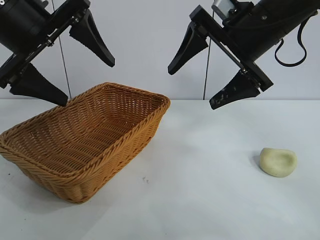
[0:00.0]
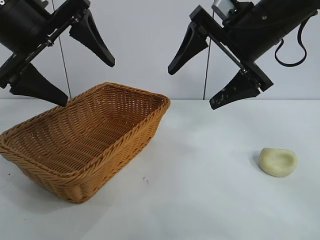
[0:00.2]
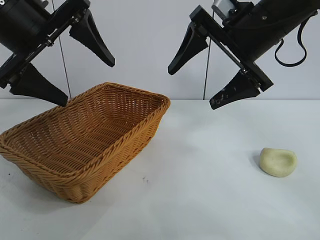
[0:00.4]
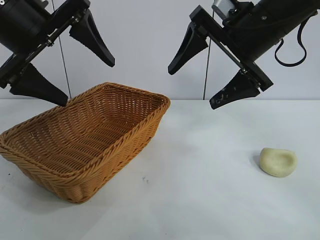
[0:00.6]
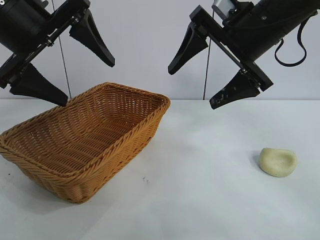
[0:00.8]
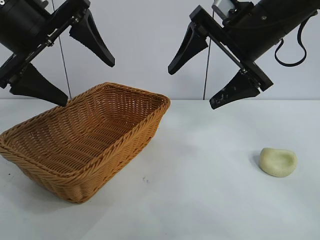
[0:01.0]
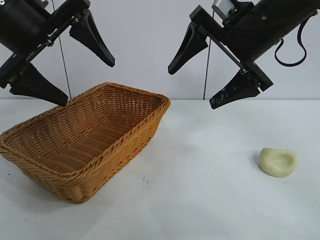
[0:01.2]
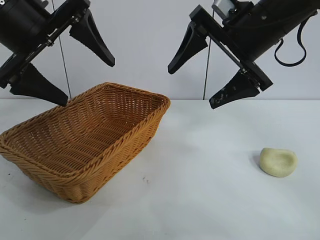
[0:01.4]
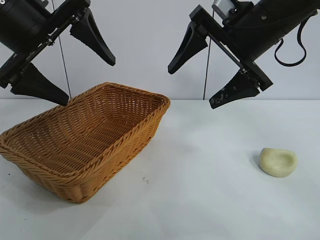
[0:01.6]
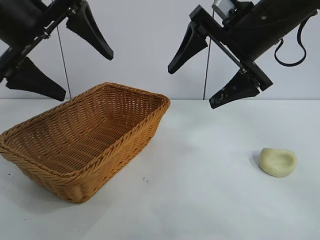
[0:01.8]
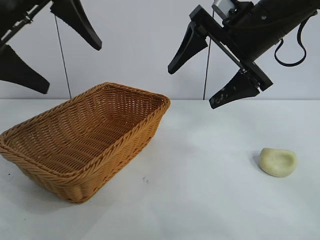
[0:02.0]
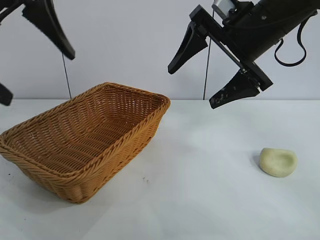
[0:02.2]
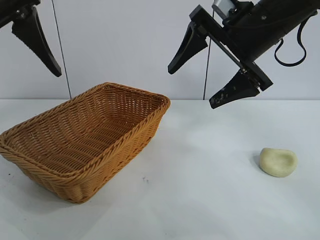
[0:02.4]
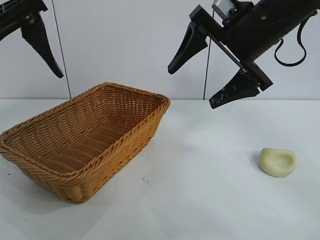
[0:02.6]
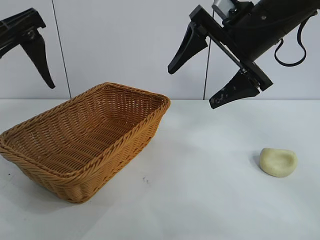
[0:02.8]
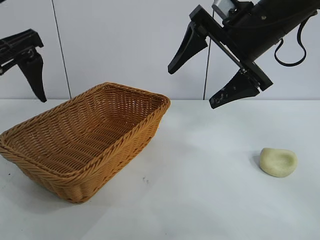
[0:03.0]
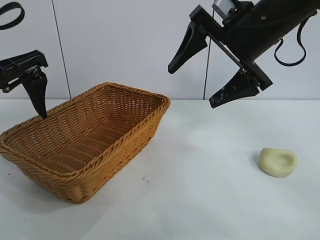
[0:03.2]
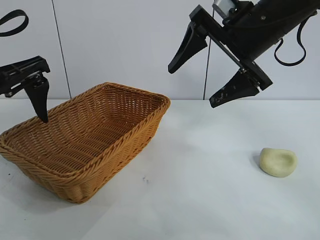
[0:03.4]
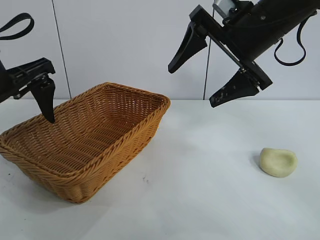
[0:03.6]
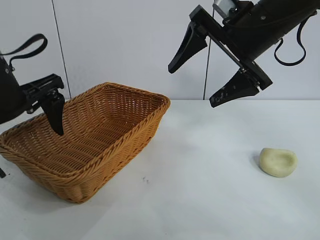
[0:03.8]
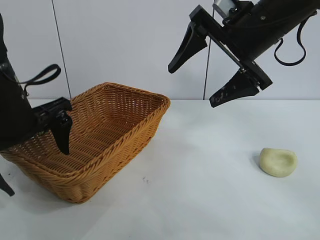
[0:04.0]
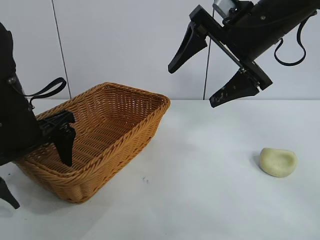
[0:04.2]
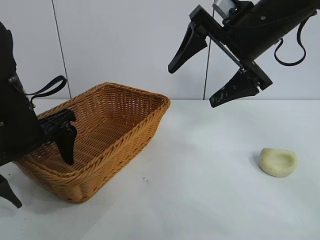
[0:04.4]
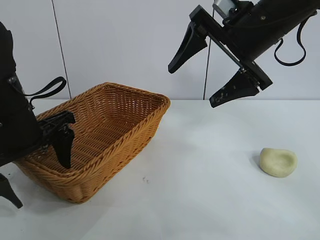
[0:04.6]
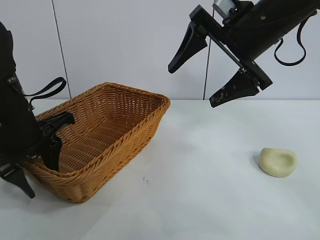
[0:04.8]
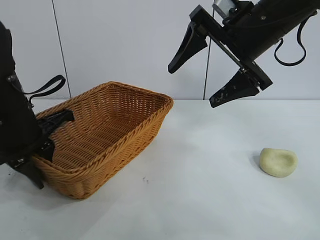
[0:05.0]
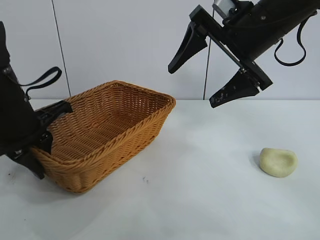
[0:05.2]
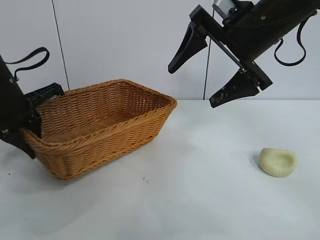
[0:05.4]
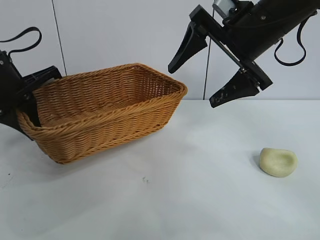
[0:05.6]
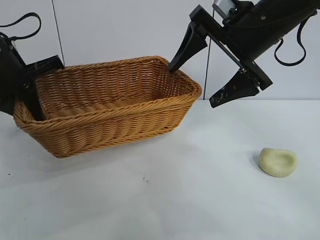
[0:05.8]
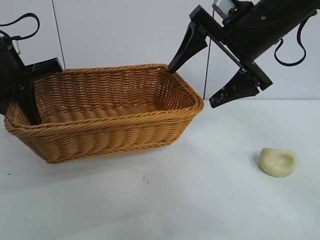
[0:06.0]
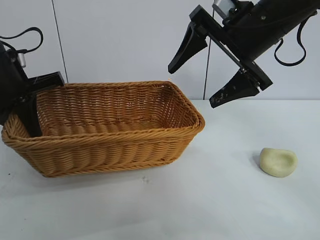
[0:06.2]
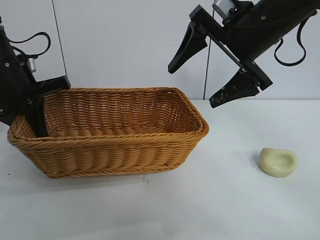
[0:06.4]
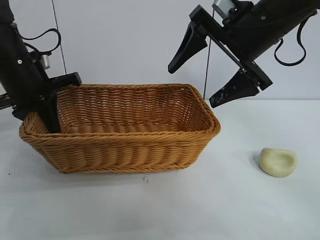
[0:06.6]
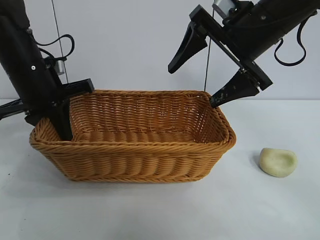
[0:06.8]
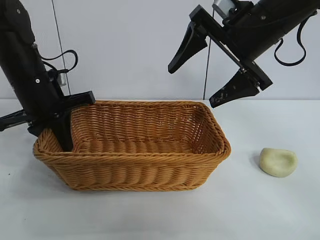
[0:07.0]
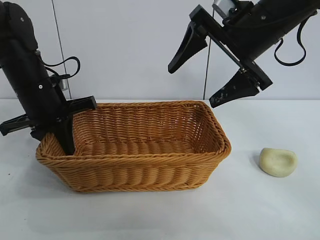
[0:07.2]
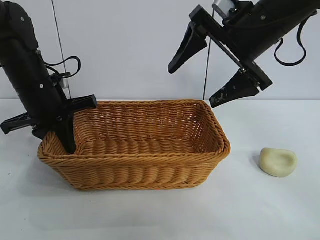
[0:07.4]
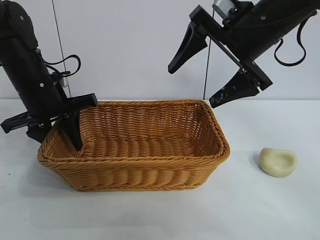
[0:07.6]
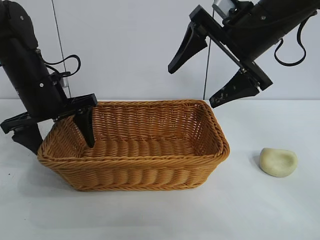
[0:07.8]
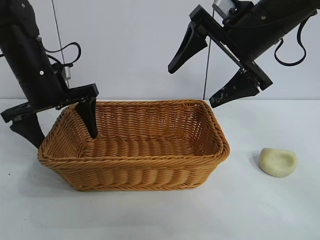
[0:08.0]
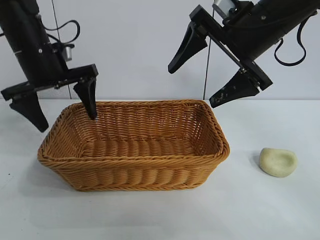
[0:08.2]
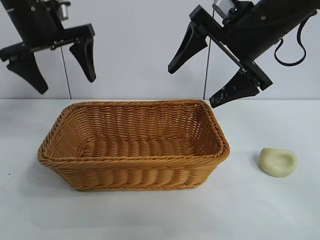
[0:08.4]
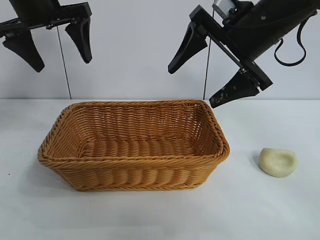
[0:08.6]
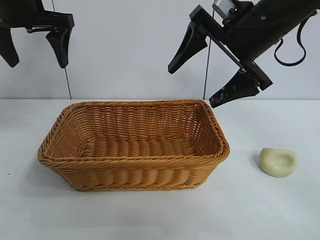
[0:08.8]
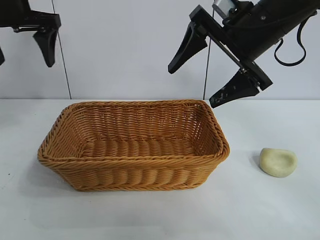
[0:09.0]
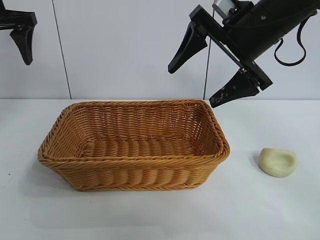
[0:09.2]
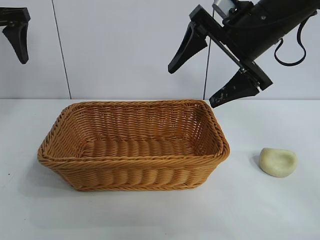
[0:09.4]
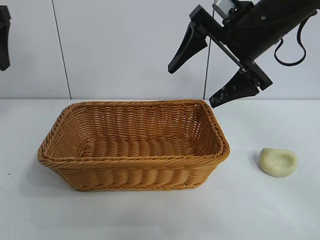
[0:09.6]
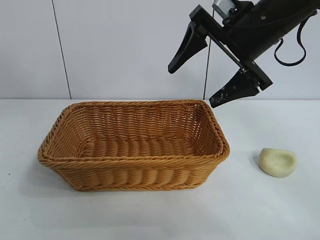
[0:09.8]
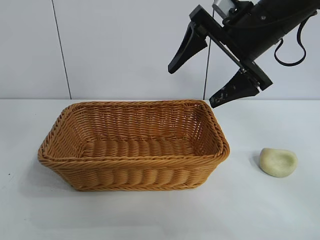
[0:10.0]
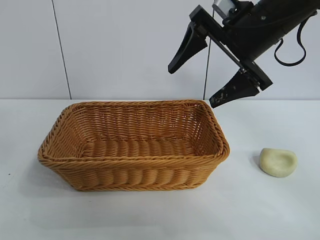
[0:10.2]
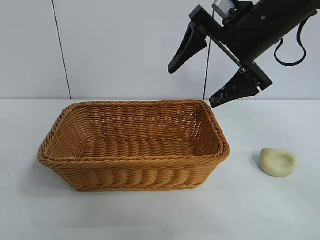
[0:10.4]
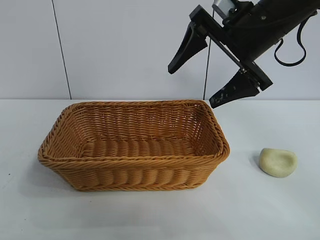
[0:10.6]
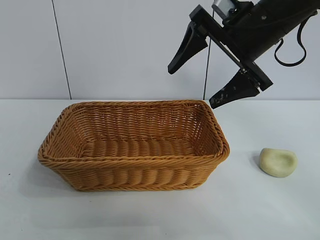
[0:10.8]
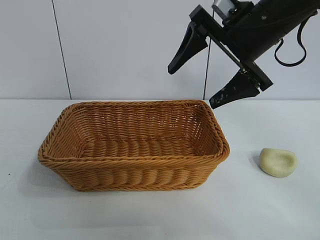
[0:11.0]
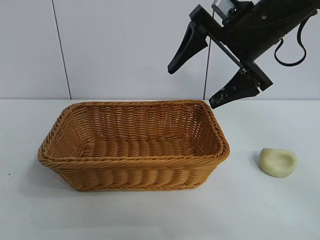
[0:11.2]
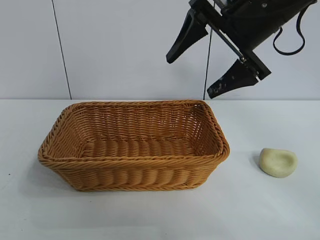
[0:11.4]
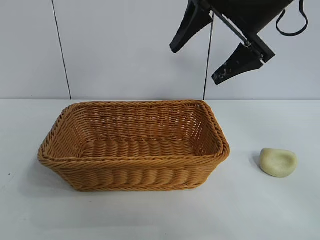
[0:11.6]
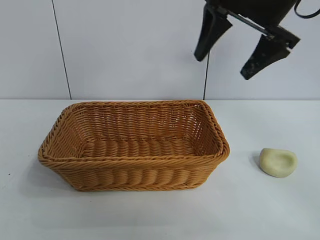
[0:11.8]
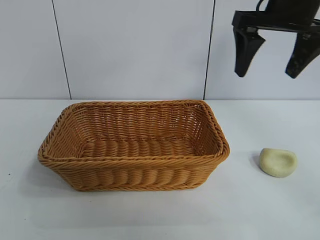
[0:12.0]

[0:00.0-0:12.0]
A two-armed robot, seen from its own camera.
Task of the whole recording: pick up the egg yolk pastry and put it into the basket.
Step, 0:01.2 to 0:05.0: Grasp the basket with left gripper.
Step, 0:05.4 to 0:07.8: Place the basket in the center of view with left gripper.

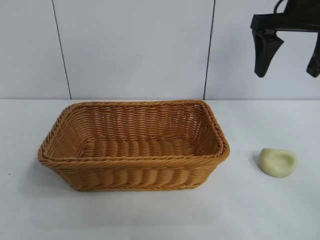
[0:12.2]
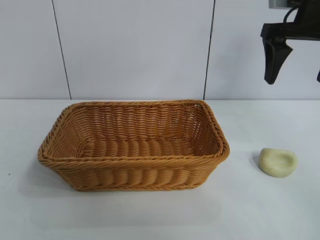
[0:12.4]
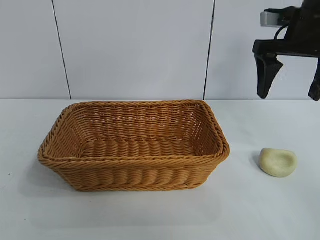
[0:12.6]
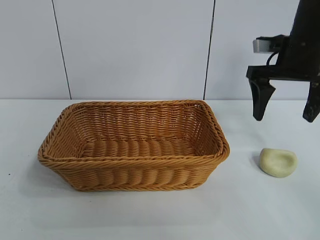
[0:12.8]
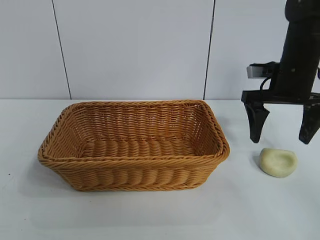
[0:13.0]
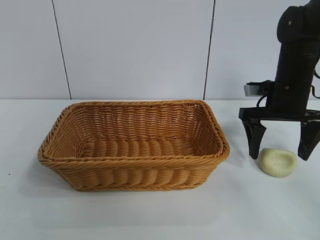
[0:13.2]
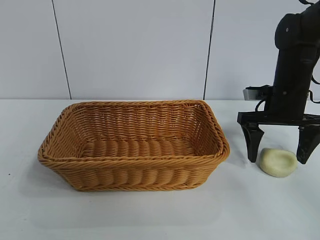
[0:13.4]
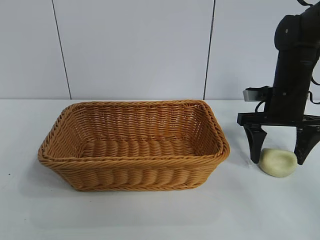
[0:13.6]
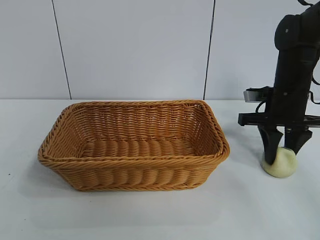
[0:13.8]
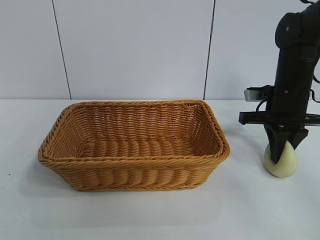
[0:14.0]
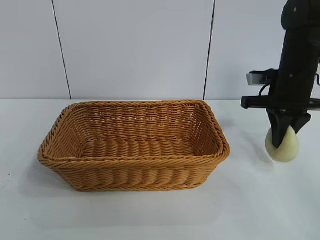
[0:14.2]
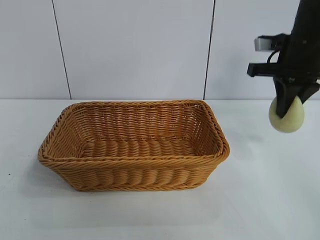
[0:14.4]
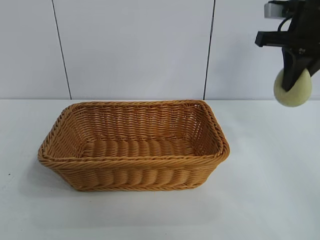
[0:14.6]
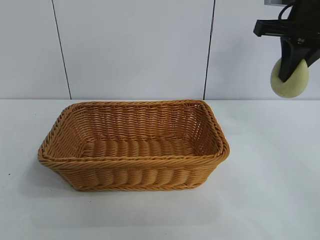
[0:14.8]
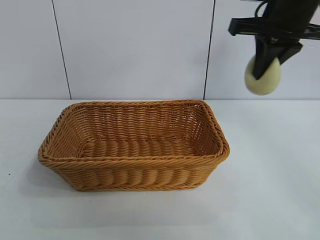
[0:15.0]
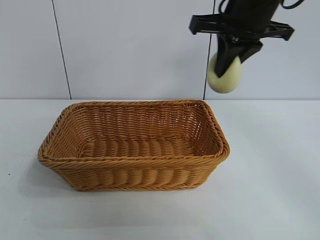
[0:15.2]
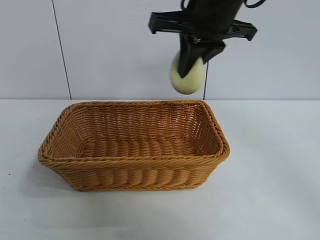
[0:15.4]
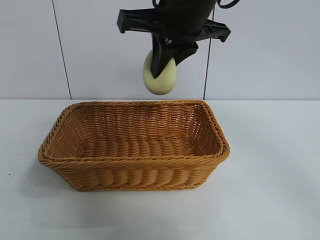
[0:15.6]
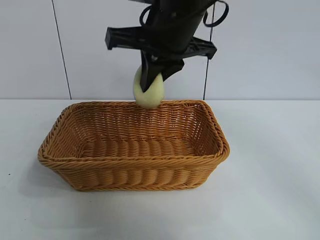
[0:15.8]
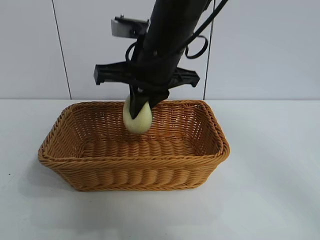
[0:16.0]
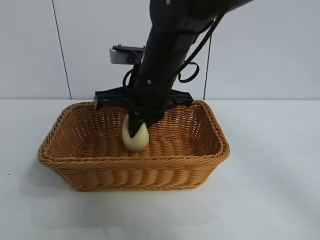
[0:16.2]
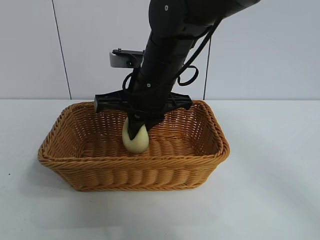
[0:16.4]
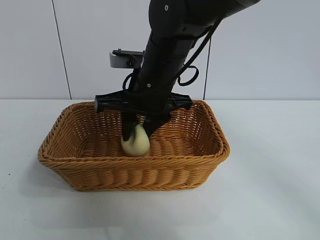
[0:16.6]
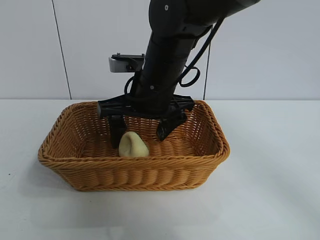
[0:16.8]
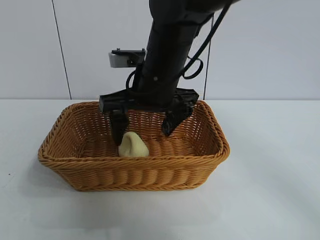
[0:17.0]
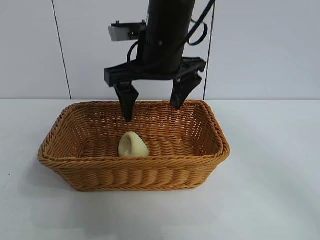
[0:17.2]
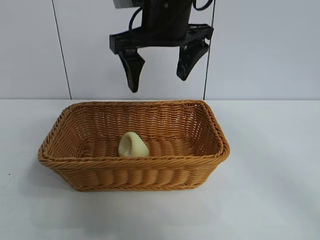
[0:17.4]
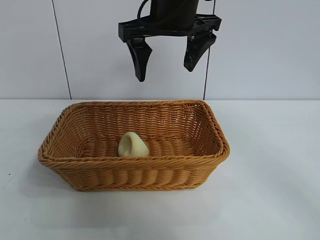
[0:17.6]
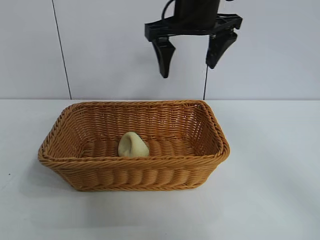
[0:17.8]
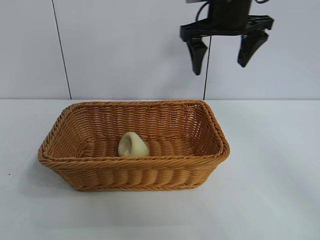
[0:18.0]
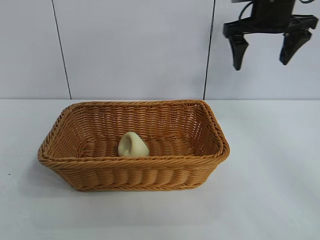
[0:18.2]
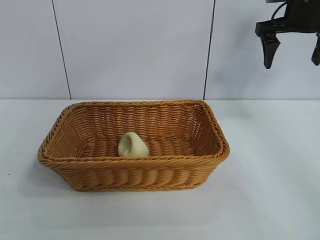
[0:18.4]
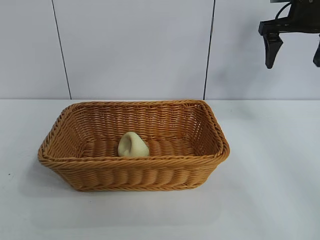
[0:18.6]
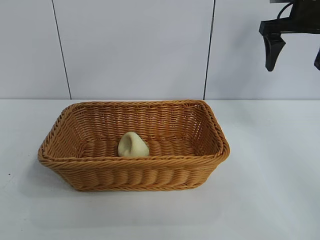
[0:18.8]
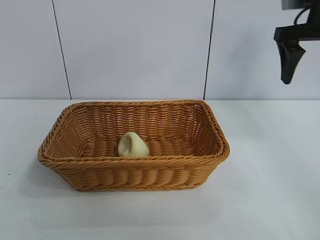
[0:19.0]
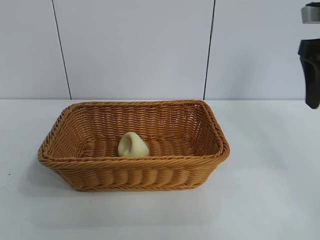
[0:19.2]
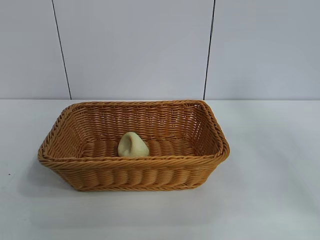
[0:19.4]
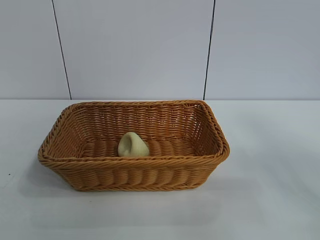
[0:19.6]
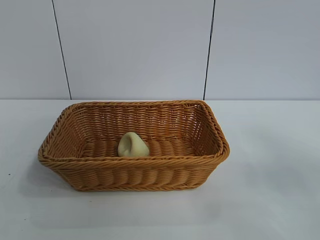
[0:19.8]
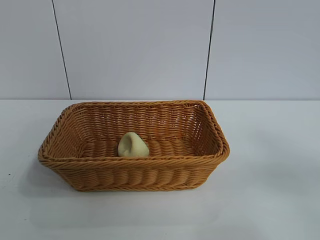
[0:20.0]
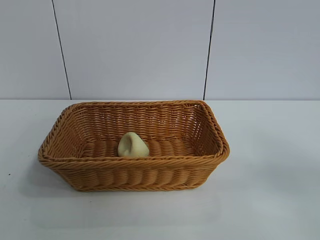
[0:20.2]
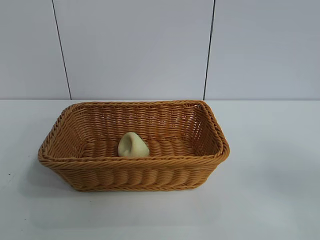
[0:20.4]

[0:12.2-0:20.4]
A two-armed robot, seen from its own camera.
Task of the whole recording: pick up the egg yolk pastry and put it into the basket.
Step, 0:14.2 to 0:17.0: Place the egg yolk pastry in the basket with right gripper.

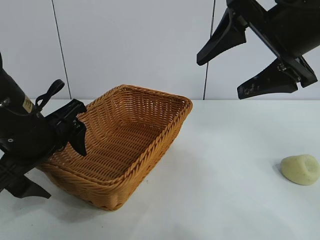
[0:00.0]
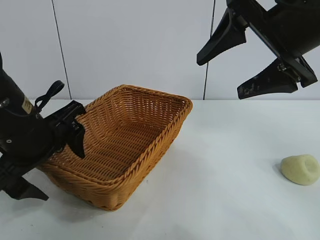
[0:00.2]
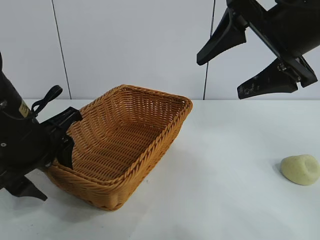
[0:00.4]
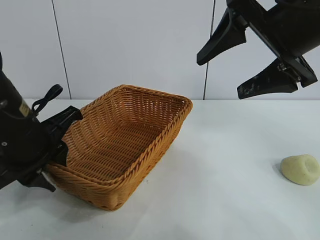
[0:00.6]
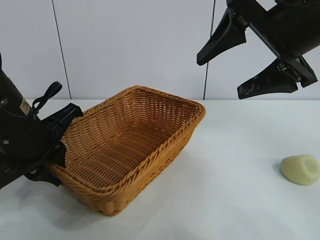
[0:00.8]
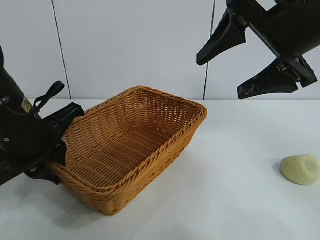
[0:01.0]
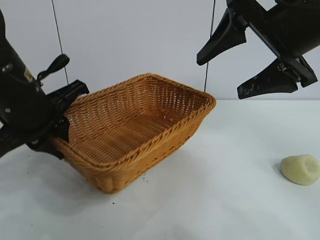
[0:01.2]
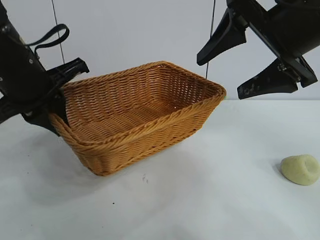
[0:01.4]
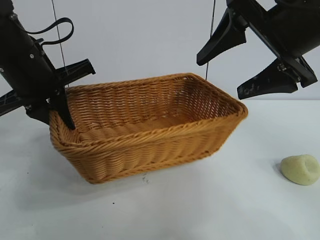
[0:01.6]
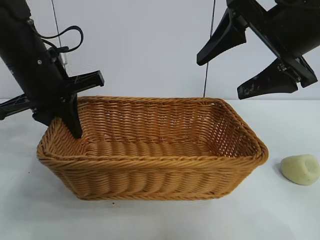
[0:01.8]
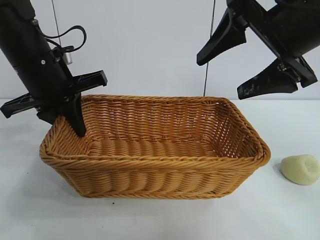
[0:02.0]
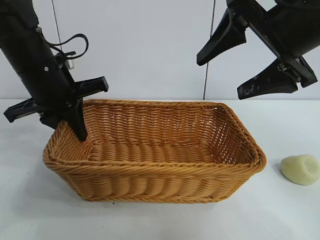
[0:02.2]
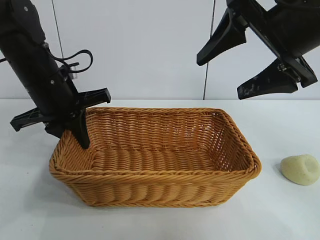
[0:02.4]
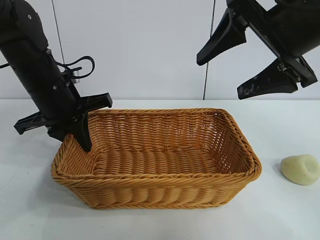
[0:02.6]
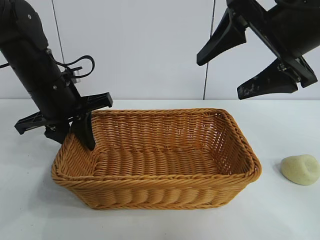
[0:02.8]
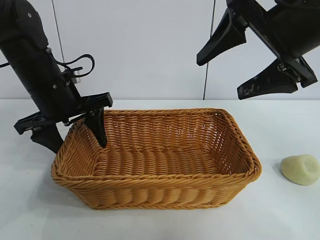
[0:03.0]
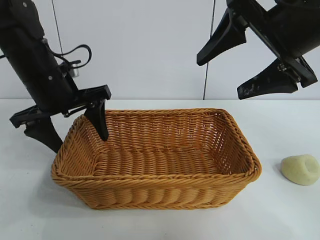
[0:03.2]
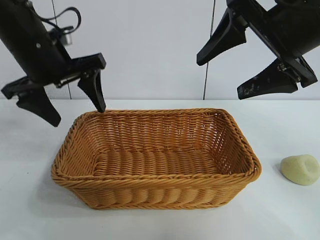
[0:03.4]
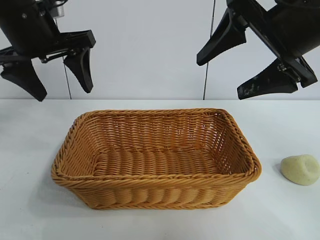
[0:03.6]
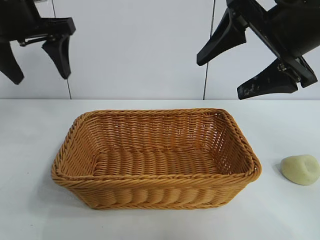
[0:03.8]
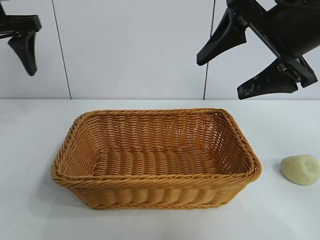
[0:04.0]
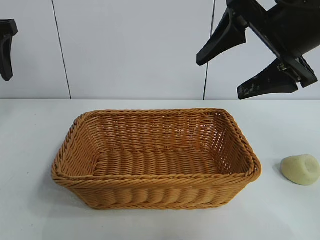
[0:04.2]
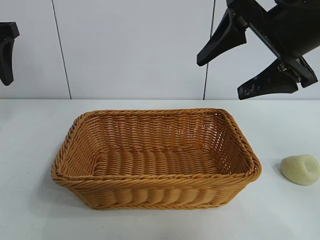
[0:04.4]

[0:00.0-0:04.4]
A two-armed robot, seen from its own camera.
Task of the whole recording: pick up the egg yolk pastry and put it into the basket.
Step, 0:00.8 to 0:03.0: Place the basket in the center of view with left gripper.
